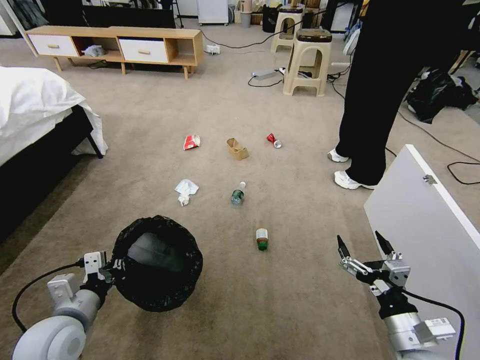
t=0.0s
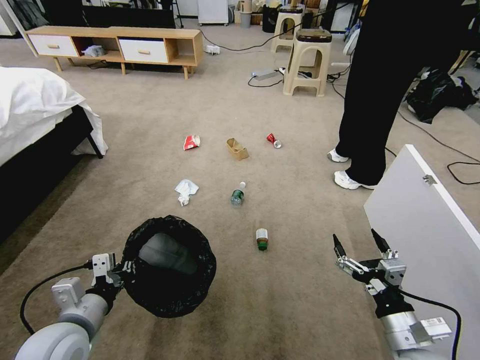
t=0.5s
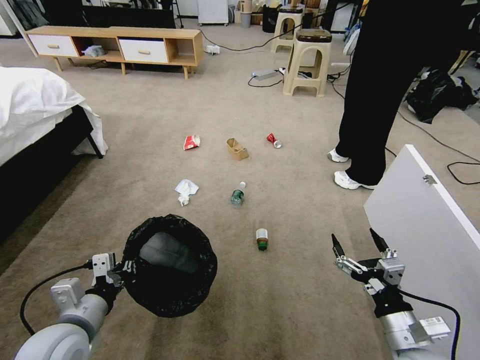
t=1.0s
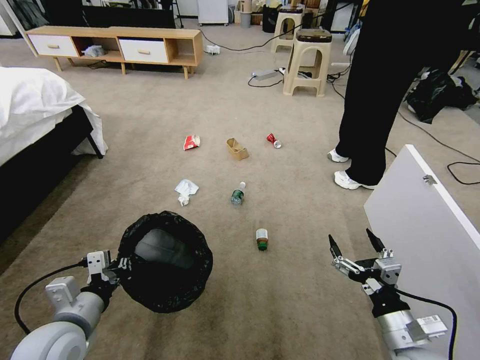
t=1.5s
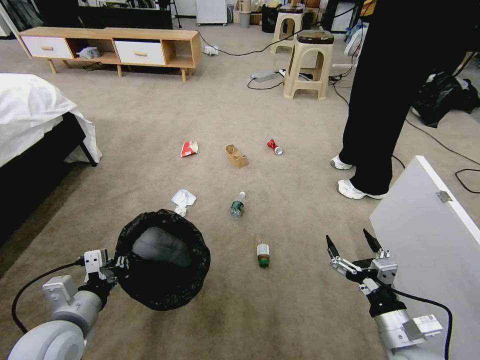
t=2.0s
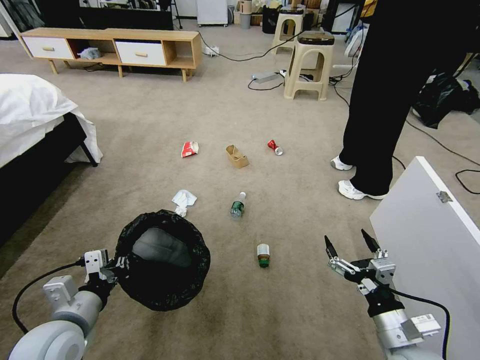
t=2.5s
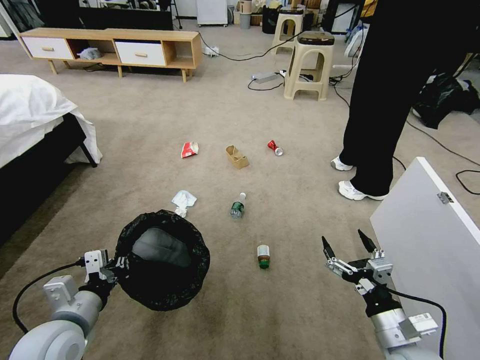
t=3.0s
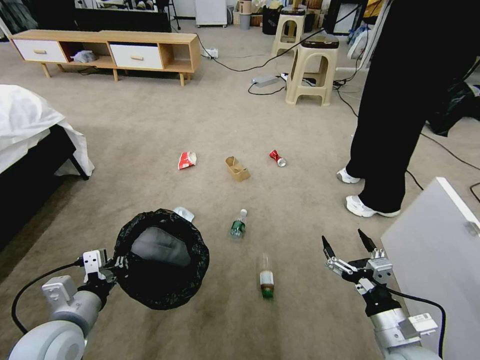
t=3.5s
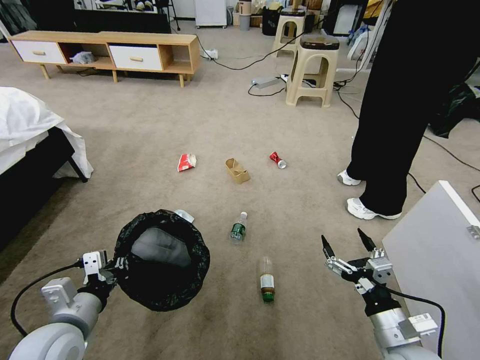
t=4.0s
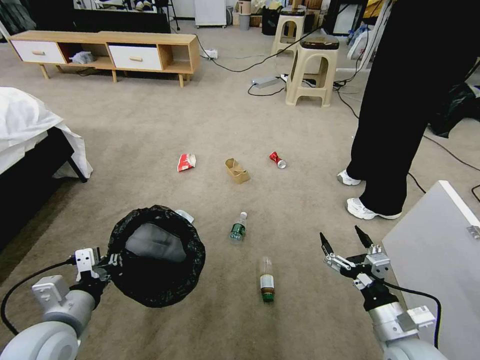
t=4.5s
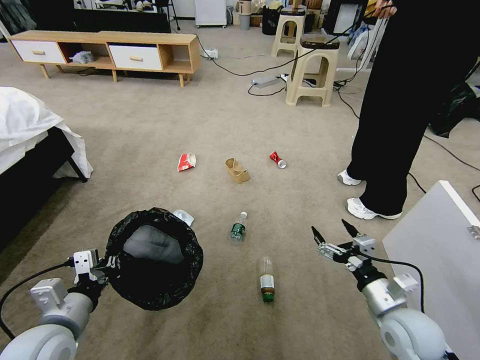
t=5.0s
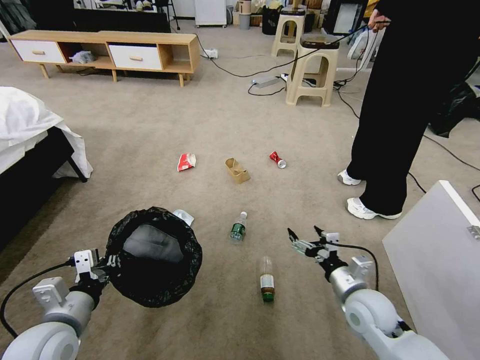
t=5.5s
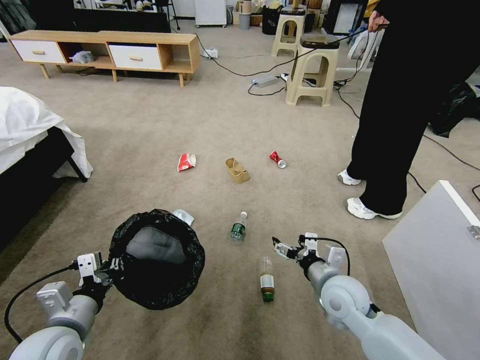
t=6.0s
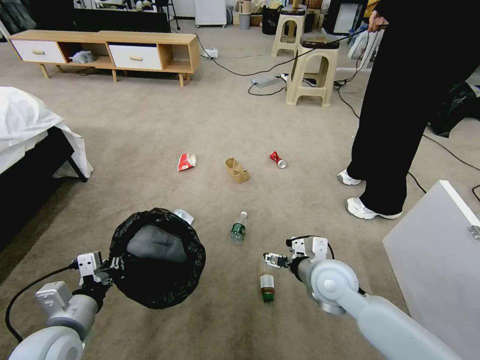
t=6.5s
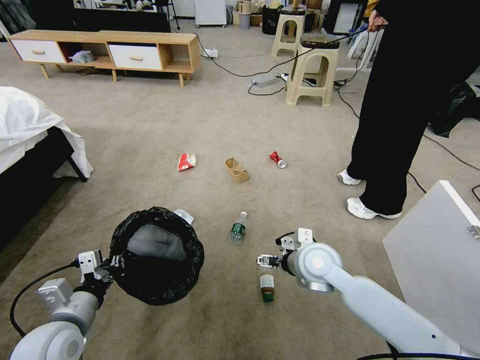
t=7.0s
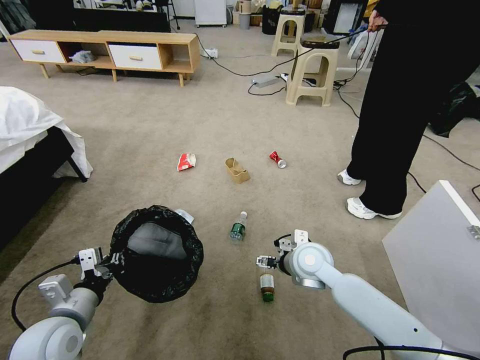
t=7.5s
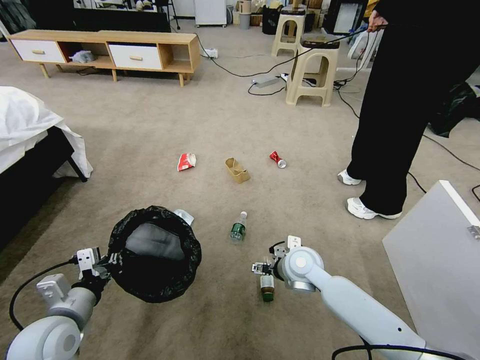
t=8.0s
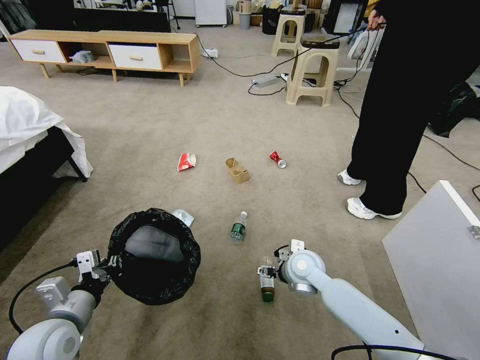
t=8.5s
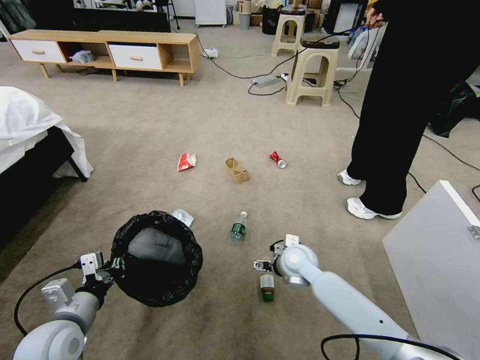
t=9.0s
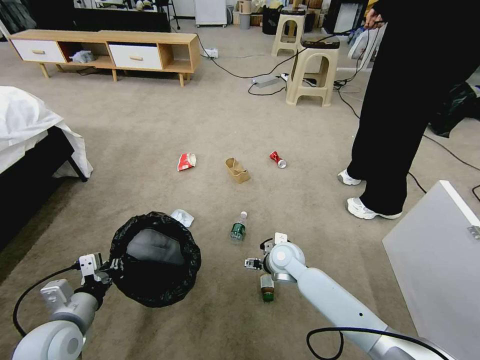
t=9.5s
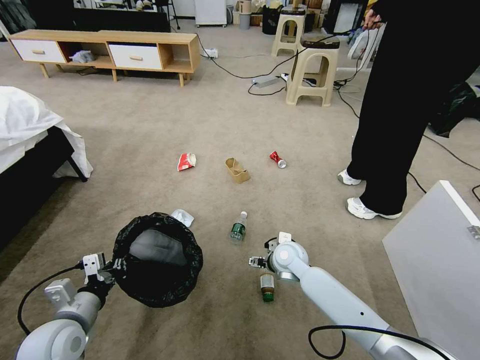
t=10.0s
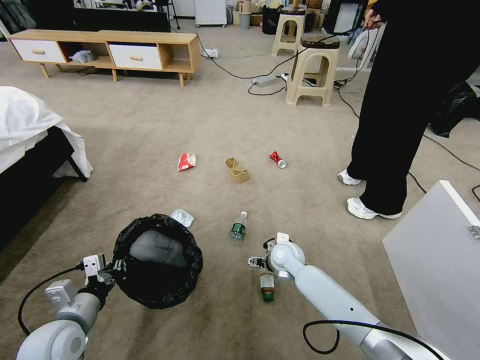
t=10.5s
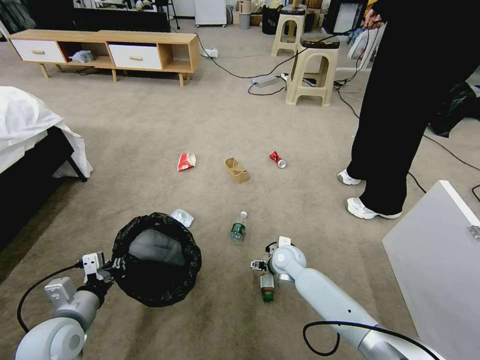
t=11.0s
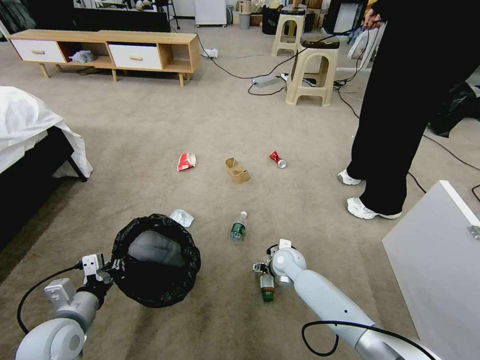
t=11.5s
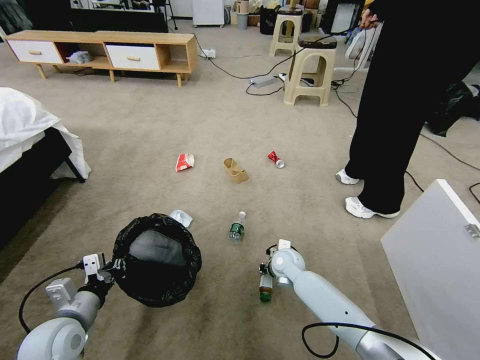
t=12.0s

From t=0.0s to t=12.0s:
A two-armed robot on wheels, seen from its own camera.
Task of the whole recording: Pick up the trash bin, then pick up the garbage from the floor and place it into the trash bin.
From t=4.0s to t=6.0s: The right gripper goes some 15 cm forward and to the left.
From t=6.0s to t=8.0s: The right gripper moves forward and to the left, approximately 10 cm.
From t=8.0s to t=10.0s: The right gripper moves approximately 5 cm.
From t=10.0s to t=12.0s: The right gripper moves downward, about 5 cm, and closes.

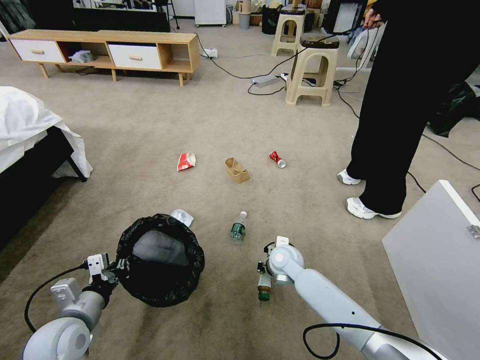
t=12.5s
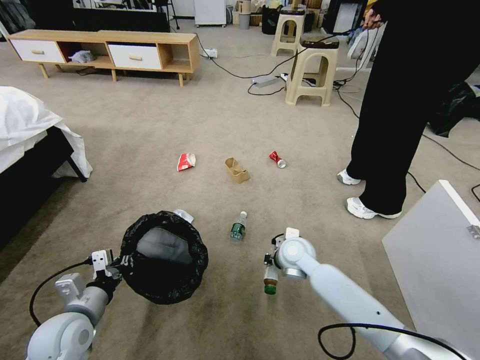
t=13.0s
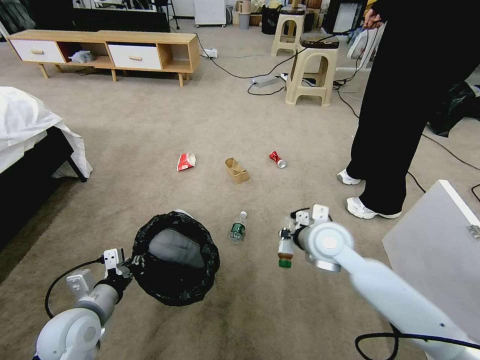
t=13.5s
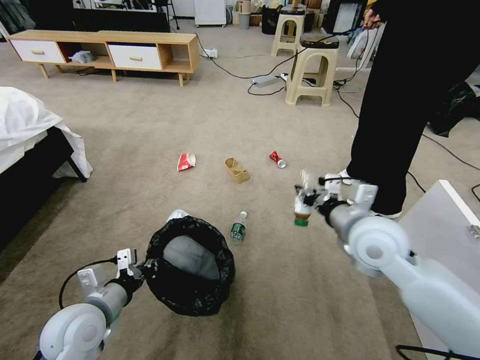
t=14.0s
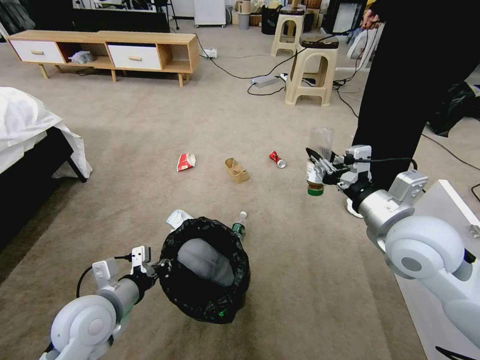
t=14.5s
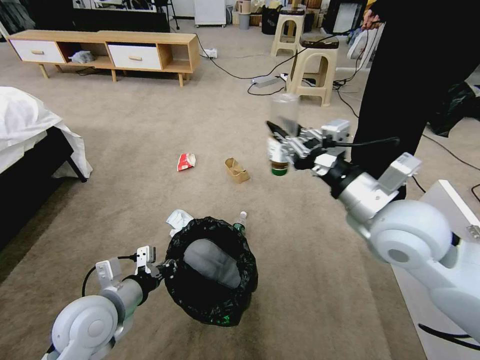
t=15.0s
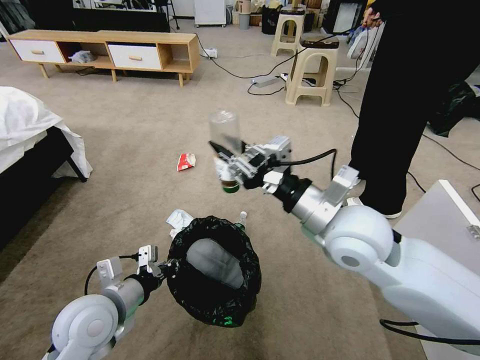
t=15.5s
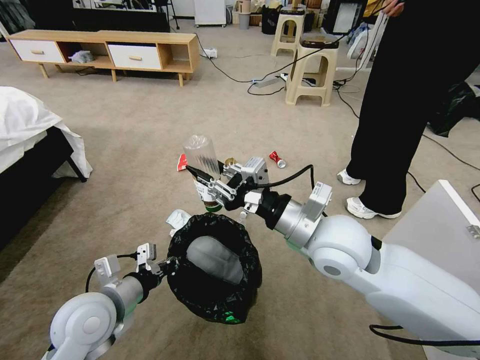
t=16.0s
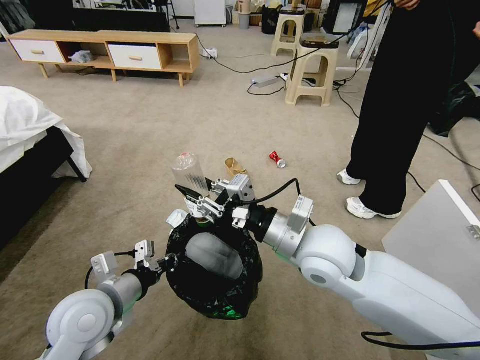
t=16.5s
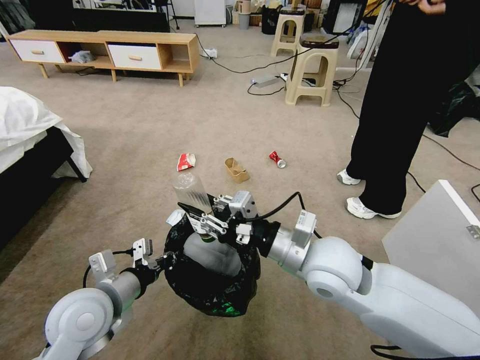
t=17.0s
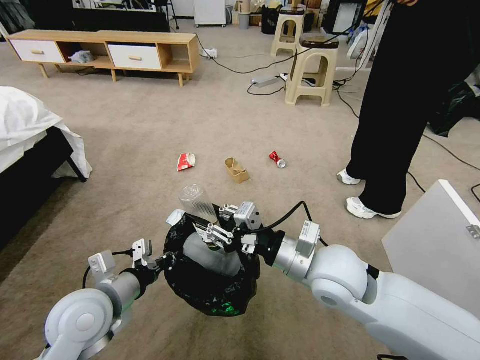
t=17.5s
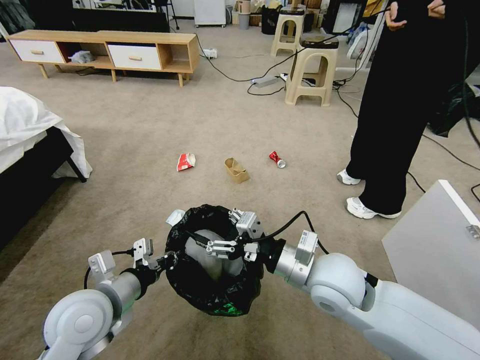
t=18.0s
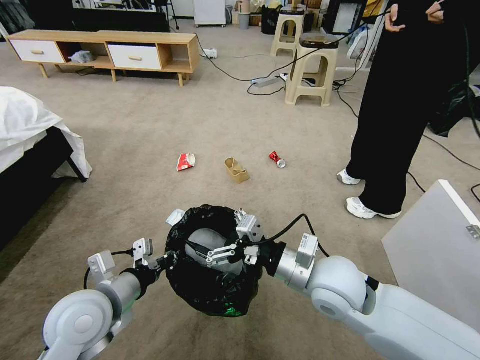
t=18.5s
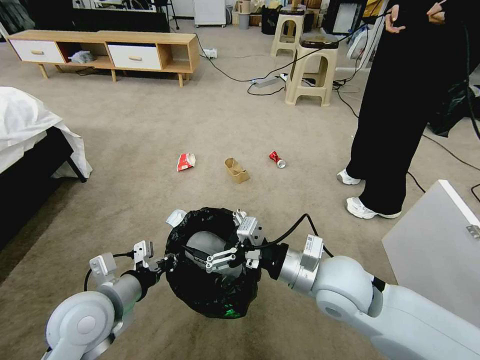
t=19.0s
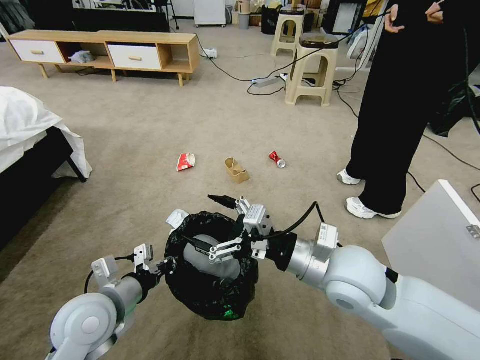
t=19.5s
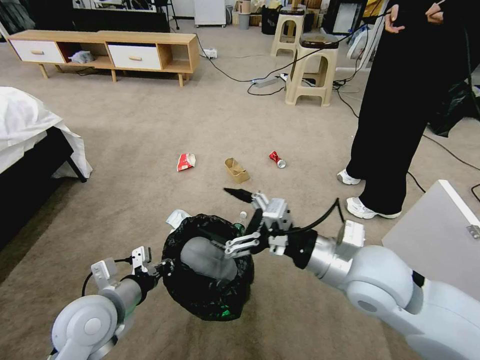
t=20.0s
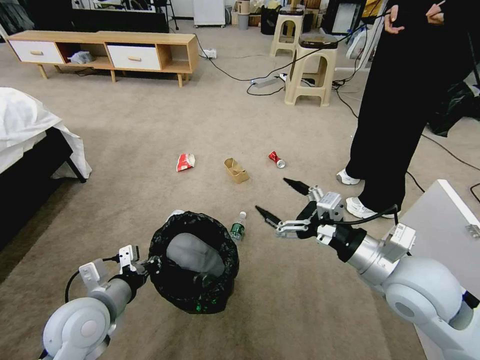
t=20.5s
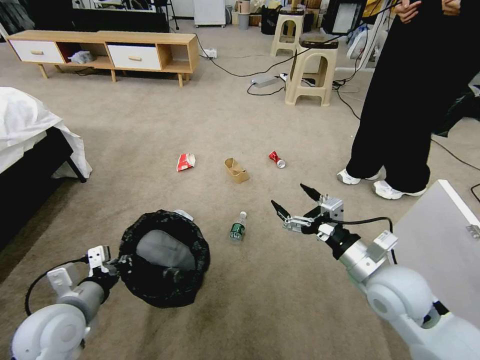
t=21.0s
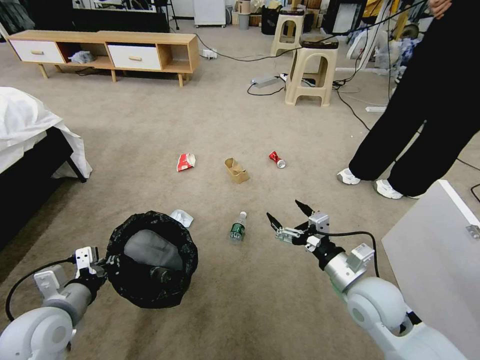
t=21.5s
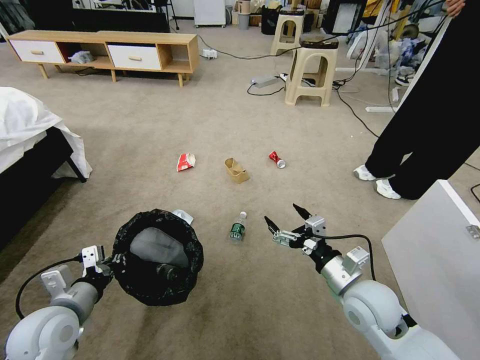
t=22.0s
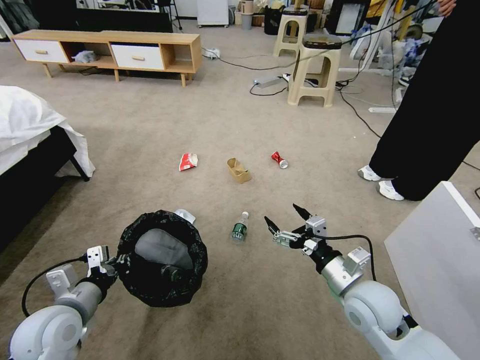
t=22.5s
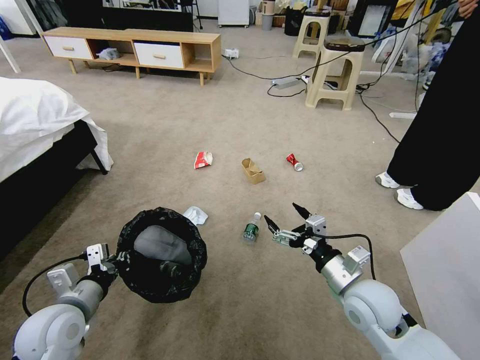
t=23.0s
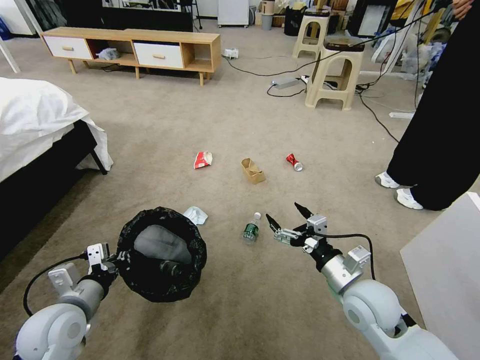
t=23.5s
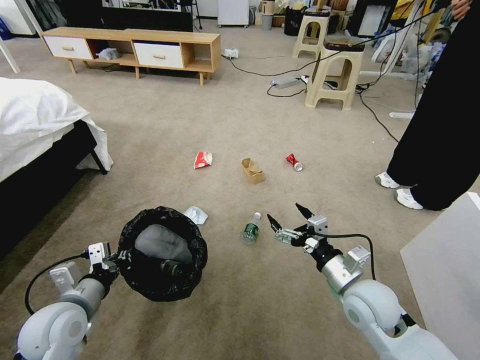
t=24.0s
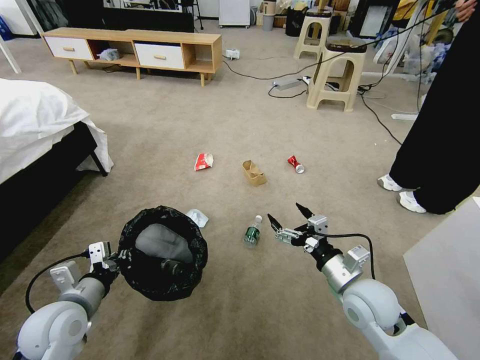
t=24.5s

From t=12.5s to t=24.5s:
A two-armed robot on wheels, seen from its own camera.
Task of the whole recording: Pick up the trash bin, then pick up the garbage from the floor and place it into the trash bin.
From t=12.5s to t=14.5s: The right gripper travels upward, to the right and backward by about 35 cm. Meanwhile the left gripper shifts roughly 10 cm to the right and upward.
From t=14.5s to t=16.5s: The right gripper goes some 15 cm to the left.
From t=16.5s to t=18.5s: The right gripper heads downward, covering approximately 5 cm, and opens up.
From t=18.5s to t=20.5s: The right gripper heads to the right, covering about 10 cm.
From t=20.5s to t=22.5s: The right gripper is displaced downward by approximately 10 cm. Meanwhile the left gripper moves to the left, approximately 5 cm.

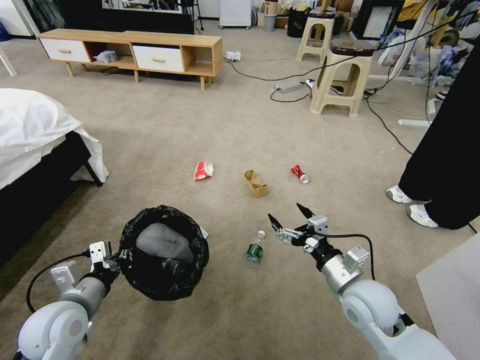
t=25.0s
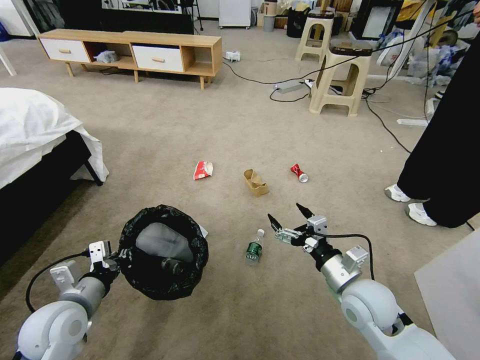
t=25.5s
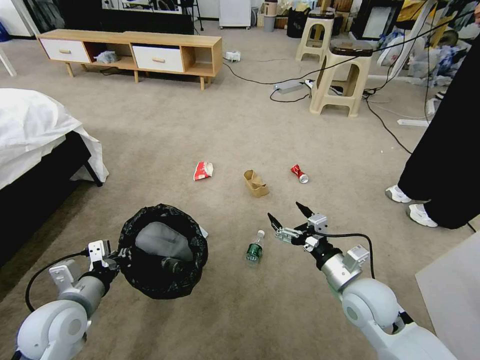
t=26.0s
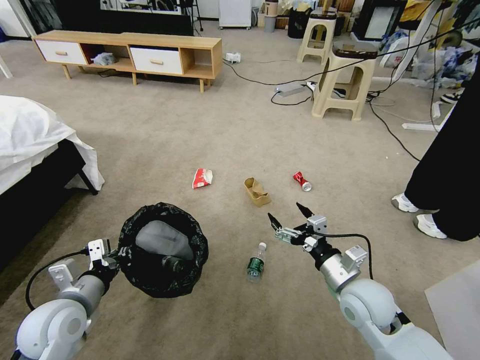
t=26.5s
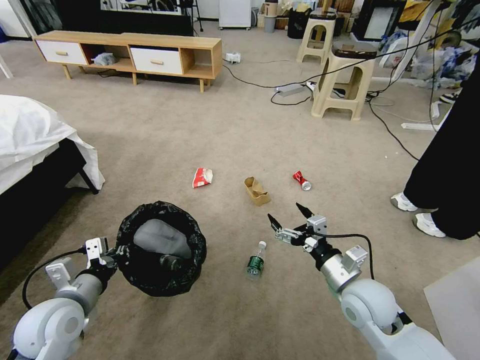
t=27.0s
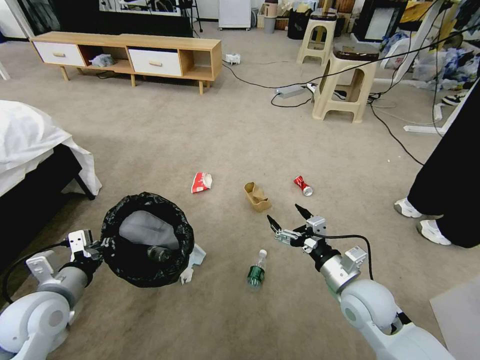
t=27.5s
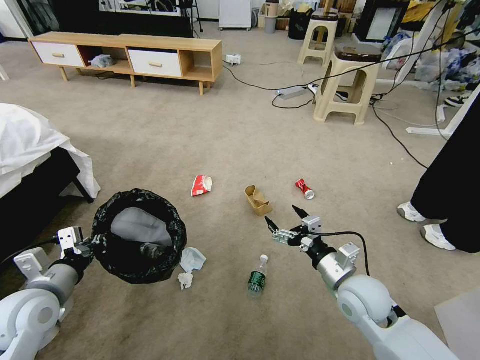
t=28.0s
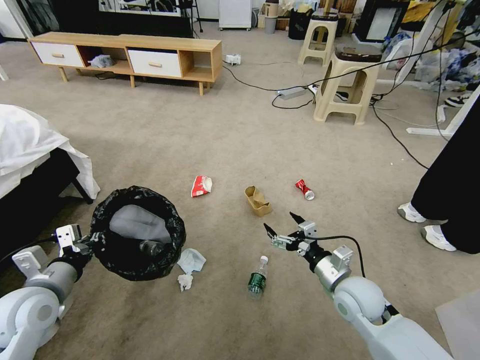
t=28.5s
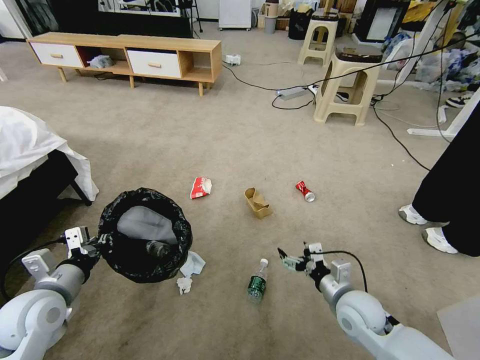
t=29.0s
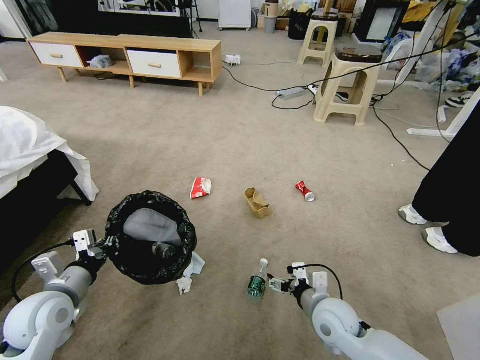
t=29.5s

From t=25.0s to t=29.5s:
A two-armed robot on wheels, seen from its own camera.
Task of the whole recording: Pick up the trash bin, then pick up the garbage from the floor and place it into the trash bin.
From t=25.0s to t=27.0s: Neither gripper changes place.
From t=27.0s to t=29.5s: The right gripper travels downward by about 10 cm.
